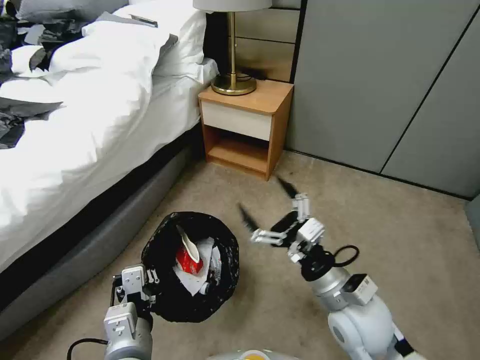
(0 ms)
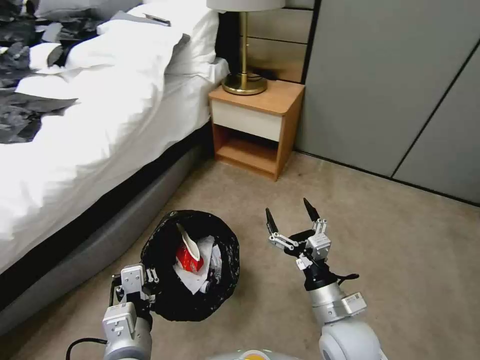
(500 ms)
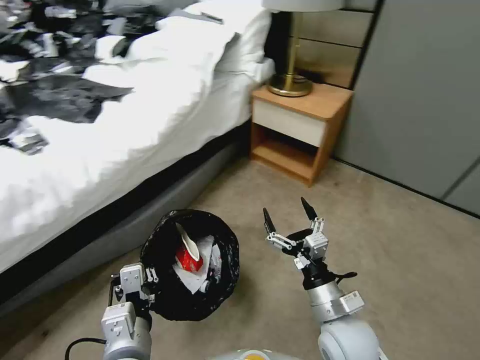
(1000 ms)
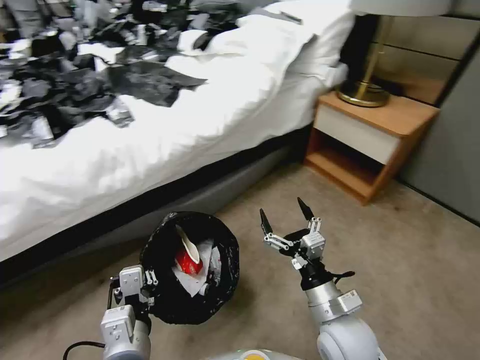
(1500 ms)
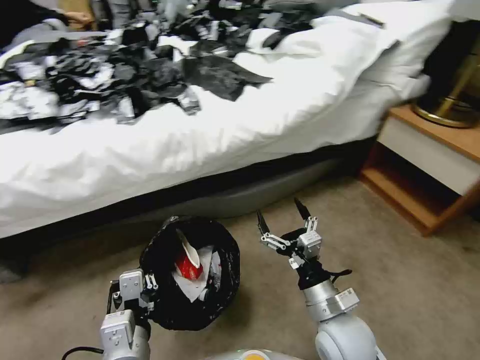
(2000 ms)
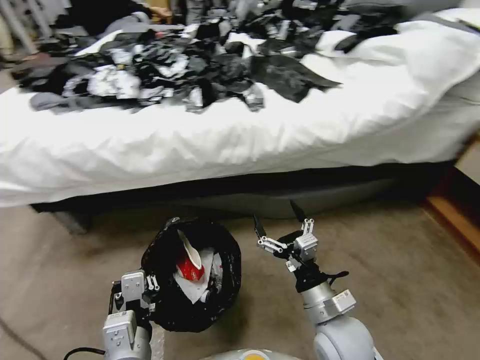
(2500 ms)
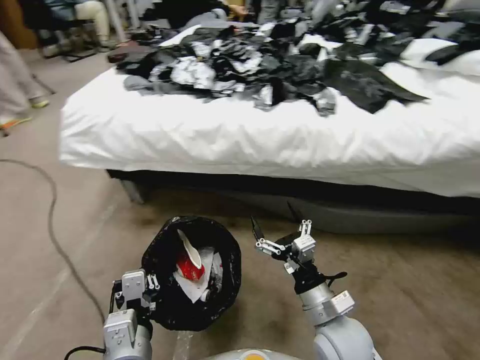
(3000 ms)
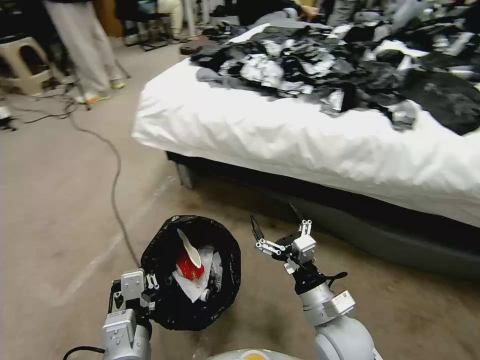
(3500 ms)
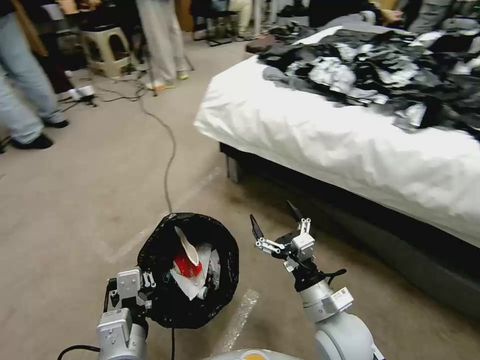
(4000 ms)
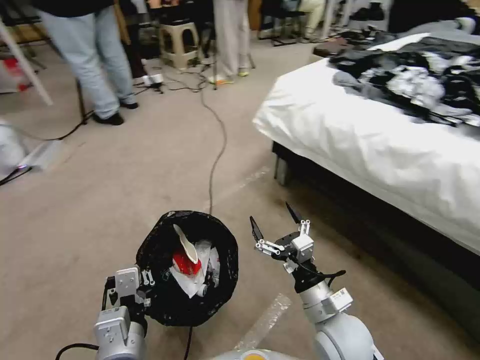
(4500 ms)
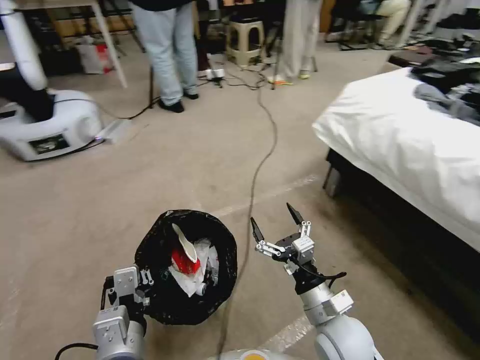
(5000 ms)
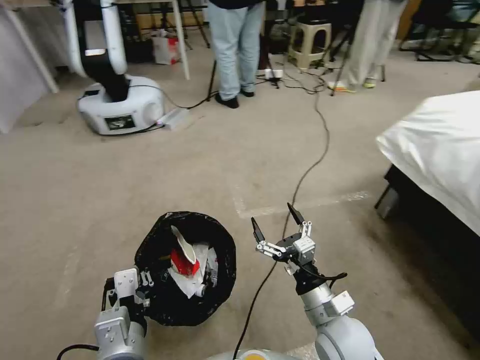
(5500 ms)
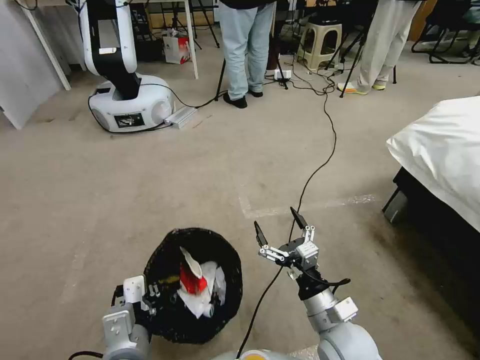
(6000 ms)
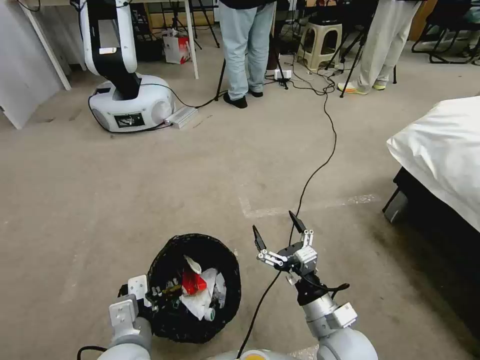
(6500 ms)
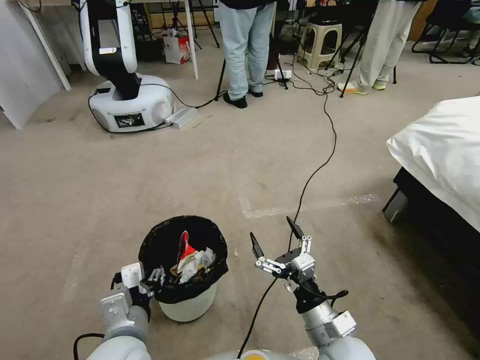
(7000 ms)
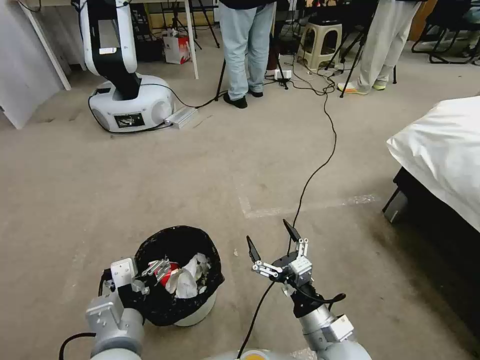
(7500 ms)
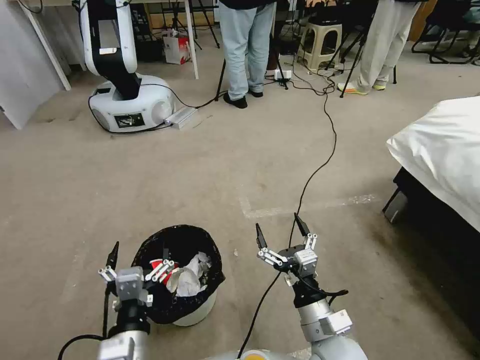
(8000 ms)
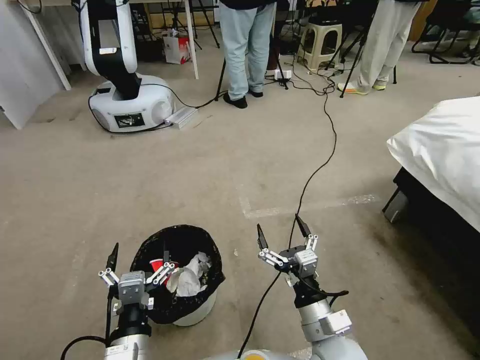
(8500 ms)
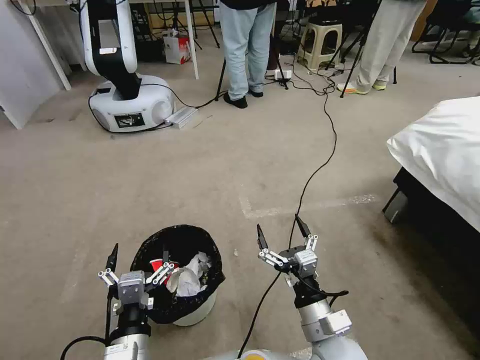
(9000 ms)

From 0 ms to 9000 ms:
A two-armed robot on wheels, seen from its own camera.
Task of the whole recording: Pick up the trash bin, then pick up the garbage from the floor and place it into the trash bin.
From 0 ms to 2000 ms: The right gripper shifts about 5 cm downward.
From 4500 ms to 7000 ms: The left gripper ends up roughly 5 cm from where it was, and opens.
From 7000 ms to 9000 ms: The left gripper travels backward by some 5 cm, and opens its fingers.

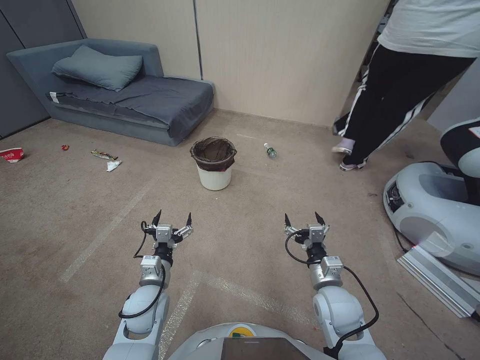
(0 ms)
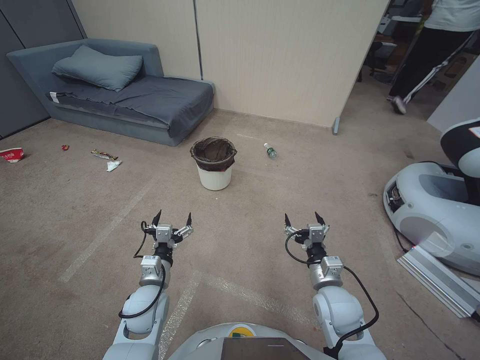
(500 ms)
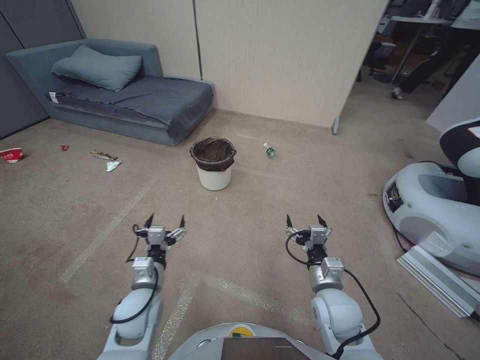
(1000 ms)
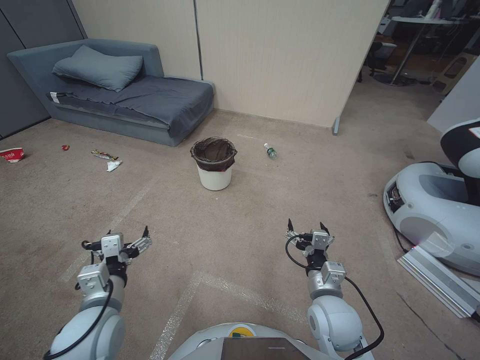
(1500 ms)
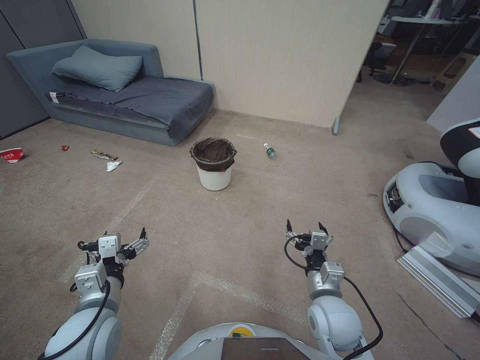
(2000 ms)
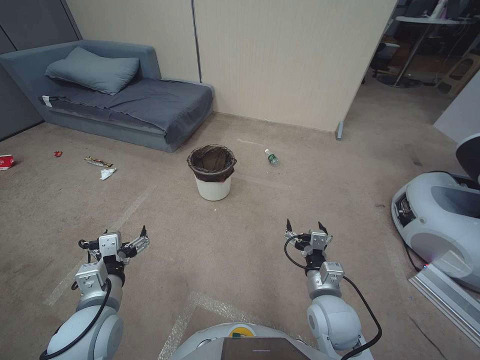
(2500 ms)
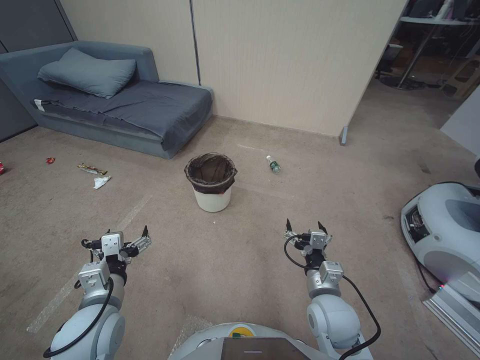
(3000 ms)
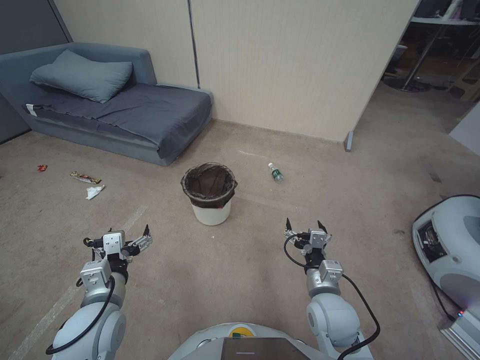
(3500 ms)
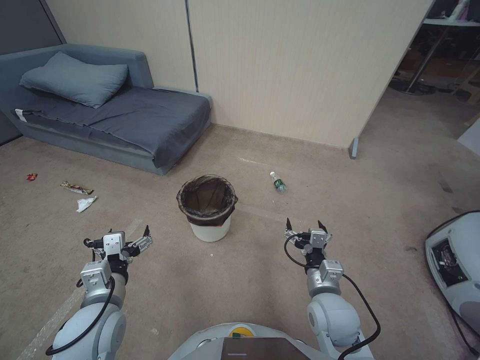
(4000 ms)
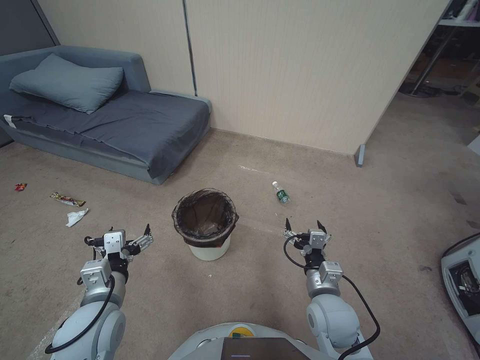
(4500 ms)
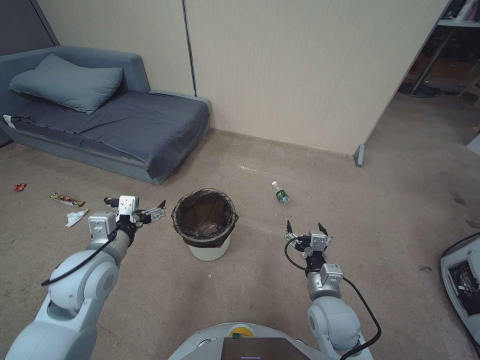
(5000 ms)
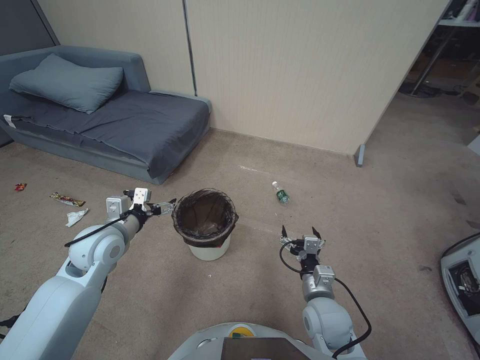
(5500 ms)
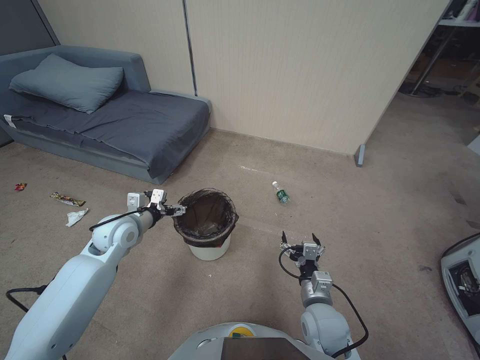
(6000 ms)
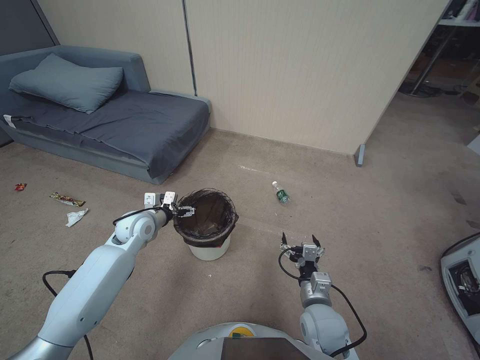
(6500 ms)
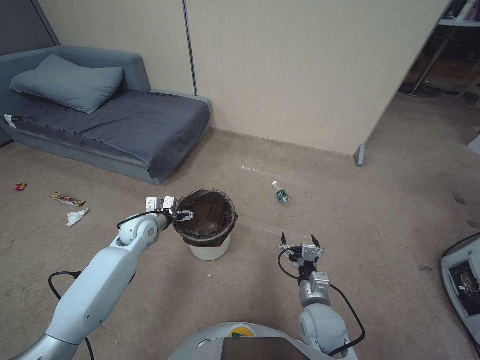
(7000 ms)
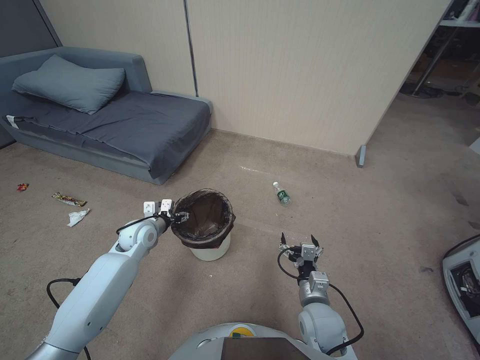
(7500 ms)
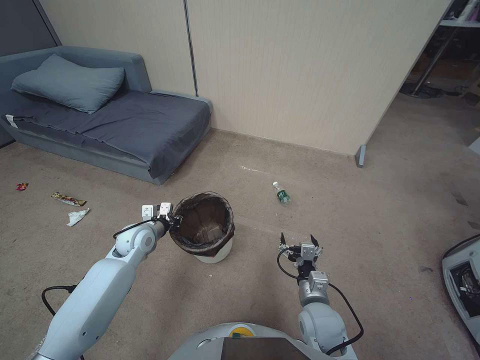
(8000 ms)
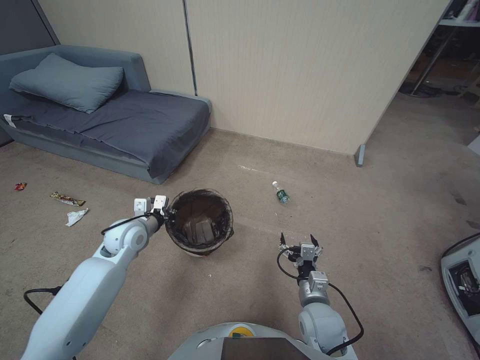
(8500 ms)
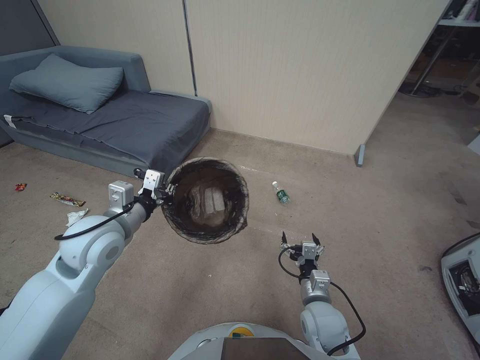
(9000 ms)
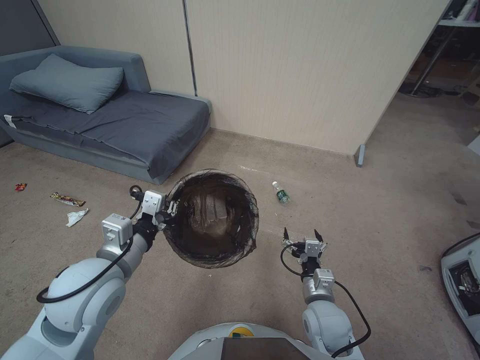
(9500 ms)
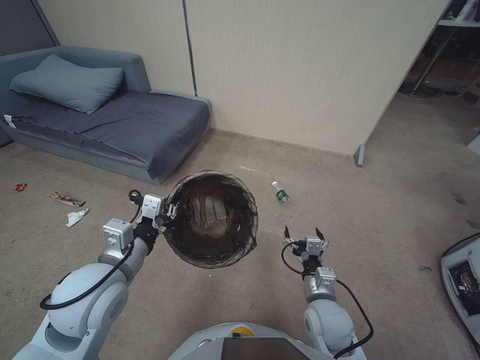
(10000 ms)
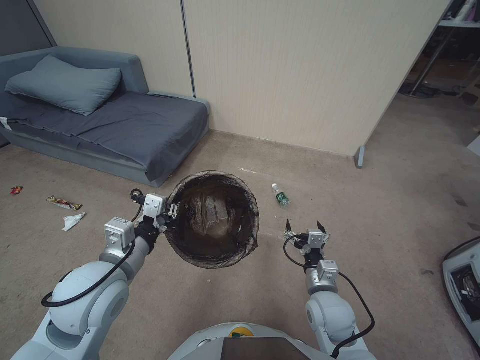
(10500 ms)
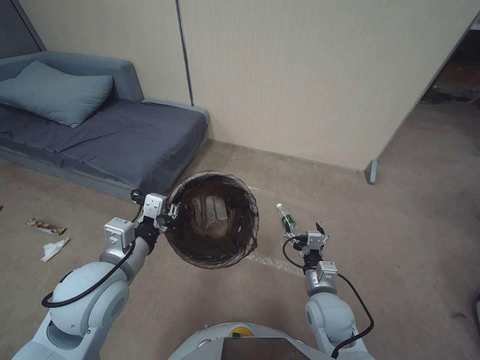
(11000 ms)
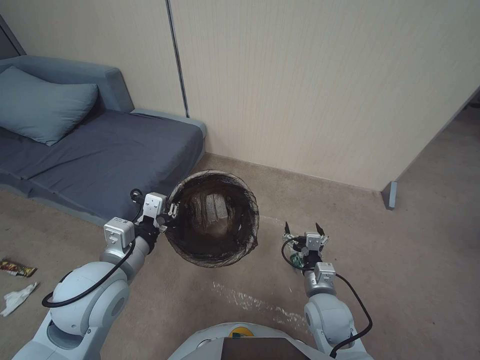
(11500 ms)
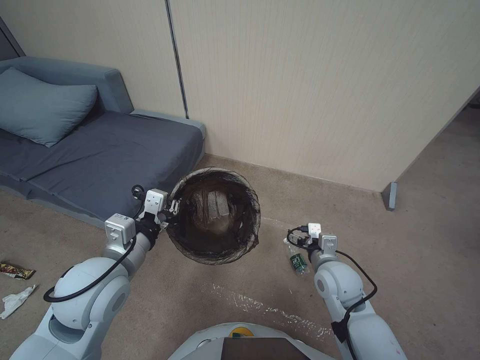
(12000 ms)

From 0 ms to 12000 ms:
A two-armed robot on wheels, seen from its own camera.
Task of the whole recording: Pick up the trash bin, then pick up the garbage from the floor and place it into the trash bin.
From 4000 ms to 6000 ms: The left gripper moves forward, some 20 cm.
From 6000 ms to 8000 ms: The left gripper goes some 10 cm downward, and closes up.
From 8000 ms to 10000 ms: The left gripper travels backward and upward by approximately 25 cm.
From 10000 ms to 12000 ms: The right gripper moves forward and upward, about 10 cm.

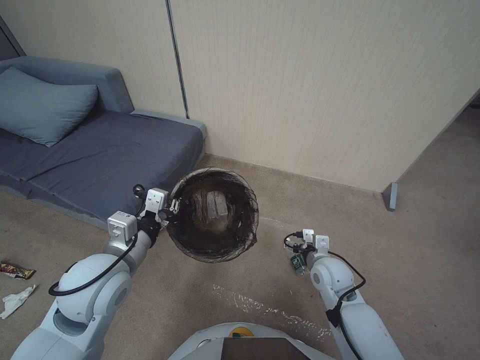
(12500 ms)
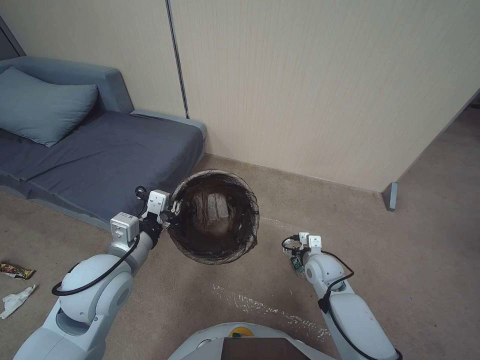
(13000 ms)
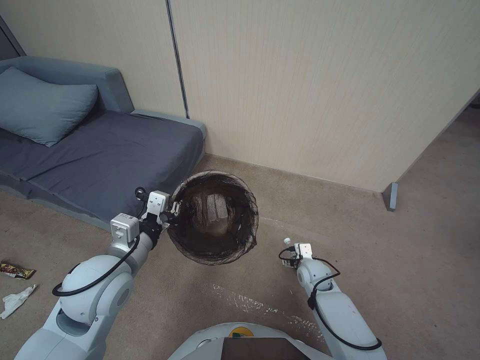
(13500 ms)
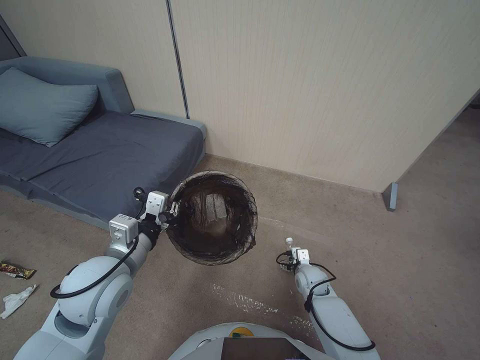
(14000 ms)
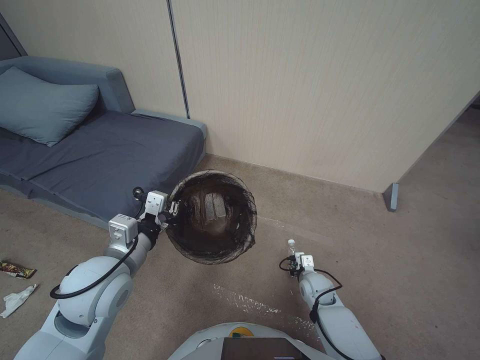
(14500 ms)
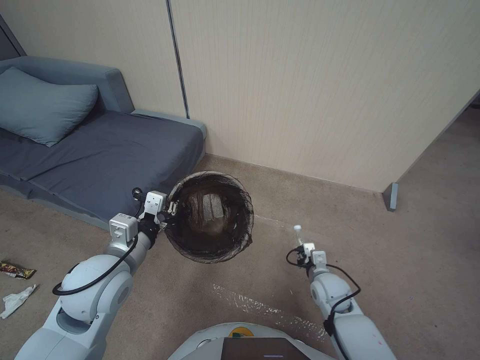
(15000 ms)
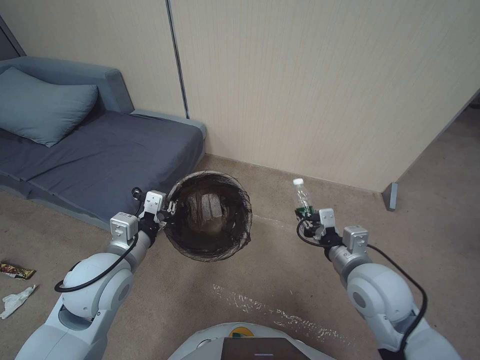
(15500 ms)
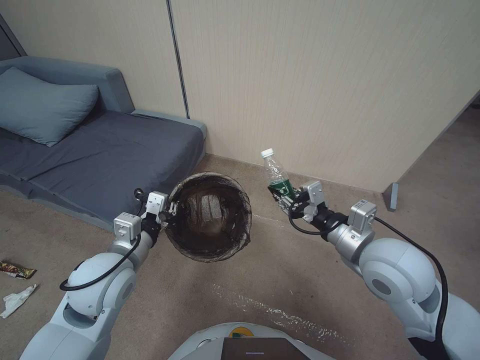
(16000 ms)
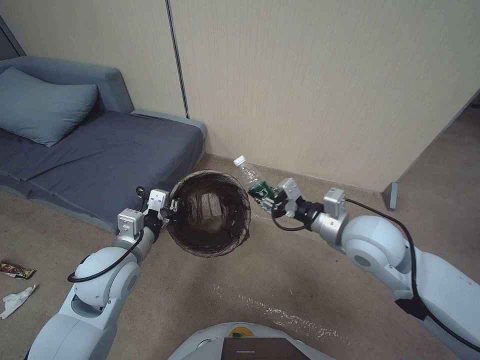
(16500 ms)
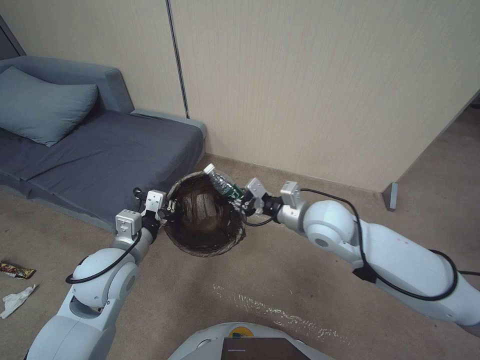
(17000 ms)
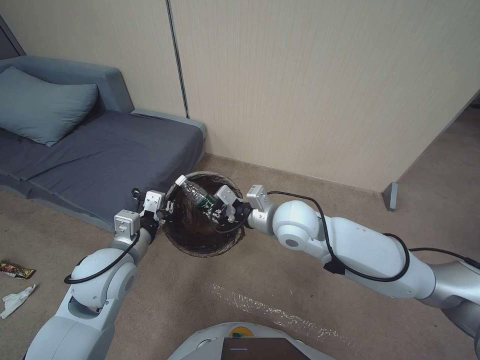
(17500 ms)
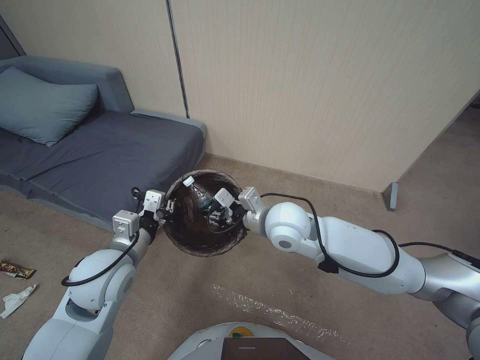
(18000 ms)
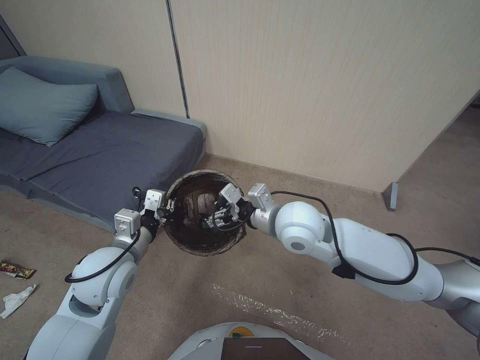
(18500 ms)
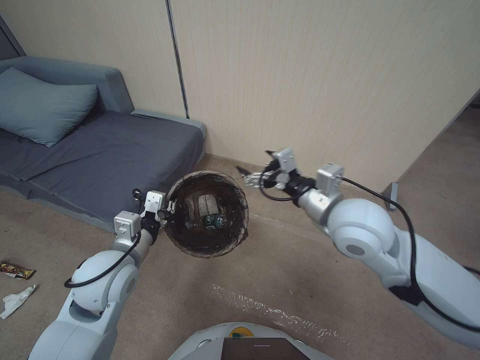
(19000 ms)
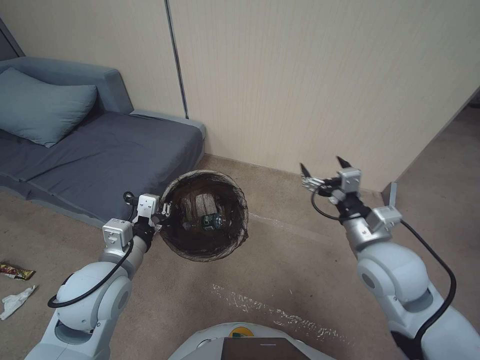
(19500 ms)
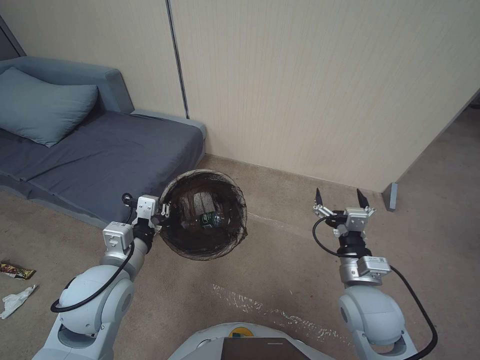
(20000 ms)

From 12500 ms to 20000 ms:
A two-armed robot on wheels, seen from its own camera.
Task of the whole recording: Pick up the trash bin, then pick up the garbage from the floor and place it into the trash bin.
From 12500 ms to 14500 ms: The right gripper travels downward by approximately 15 cm, and closes up.
From 14500 ms to 16500 ms: The right gripper shifts some 35 cm upward.
From 16500 ms to 18000 ms: The right gripper goes roughly 15 cm to the left.
From 18000 ms to 20000 ms: The right gripper goes about 25 cm to the right, backward and downward, and opens its fingers.
